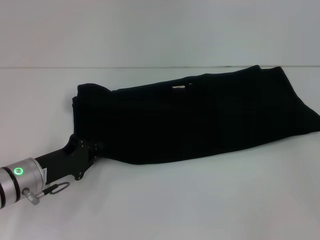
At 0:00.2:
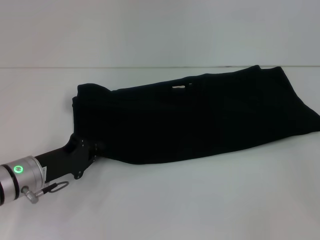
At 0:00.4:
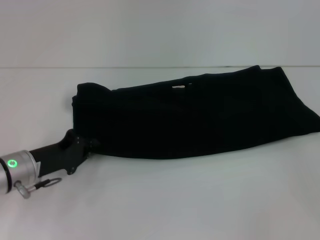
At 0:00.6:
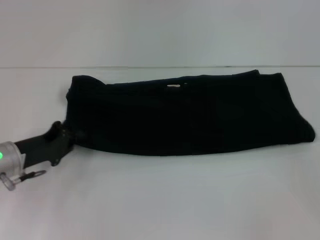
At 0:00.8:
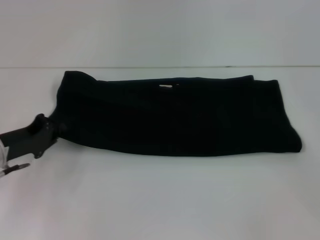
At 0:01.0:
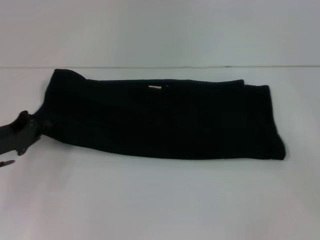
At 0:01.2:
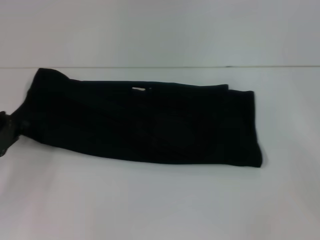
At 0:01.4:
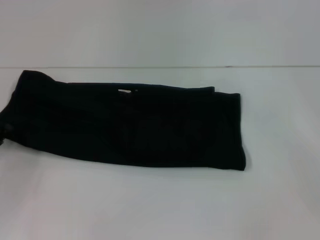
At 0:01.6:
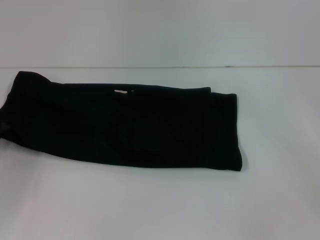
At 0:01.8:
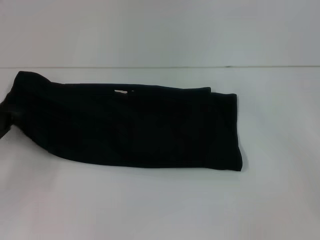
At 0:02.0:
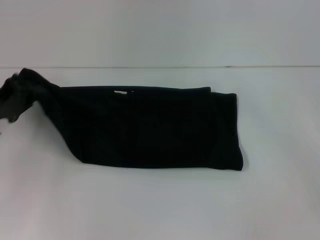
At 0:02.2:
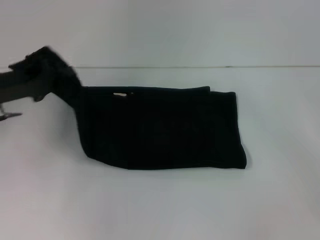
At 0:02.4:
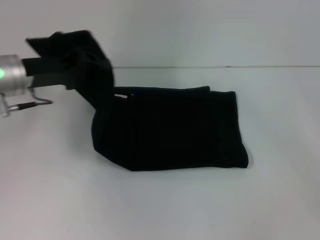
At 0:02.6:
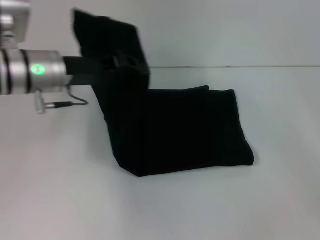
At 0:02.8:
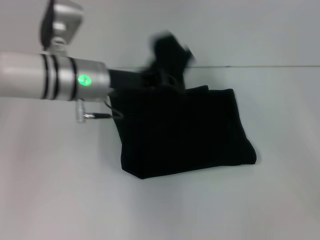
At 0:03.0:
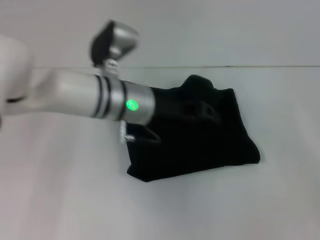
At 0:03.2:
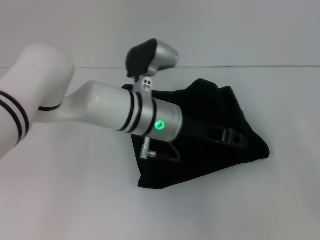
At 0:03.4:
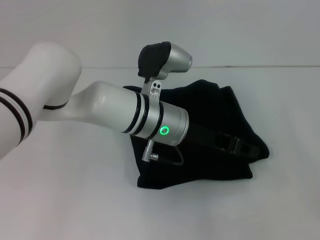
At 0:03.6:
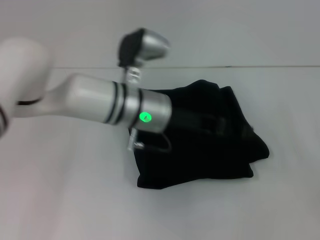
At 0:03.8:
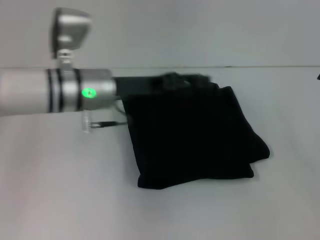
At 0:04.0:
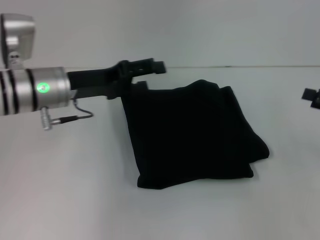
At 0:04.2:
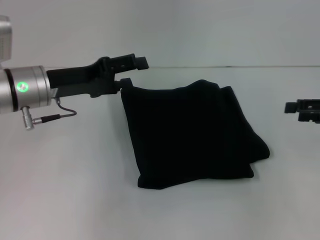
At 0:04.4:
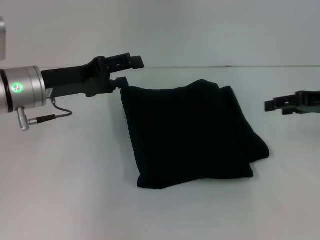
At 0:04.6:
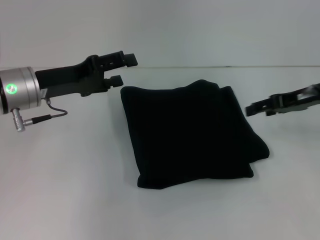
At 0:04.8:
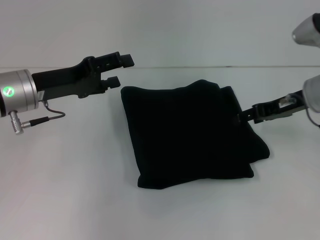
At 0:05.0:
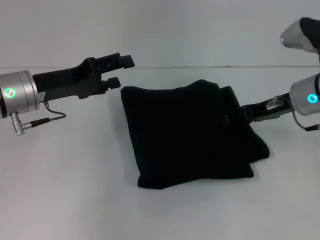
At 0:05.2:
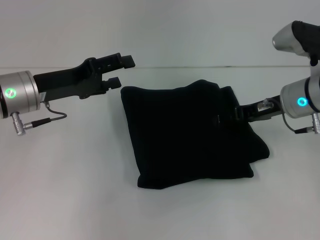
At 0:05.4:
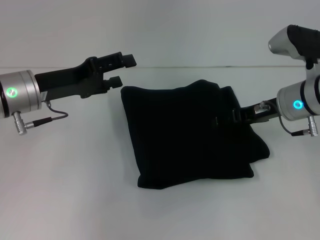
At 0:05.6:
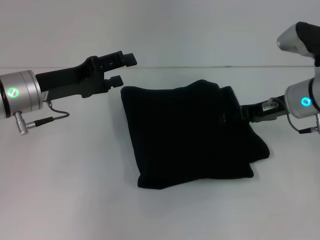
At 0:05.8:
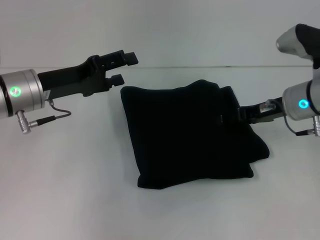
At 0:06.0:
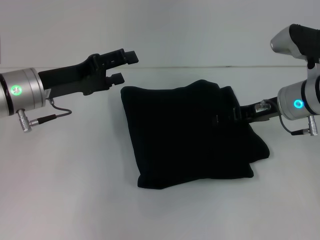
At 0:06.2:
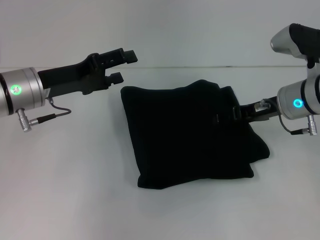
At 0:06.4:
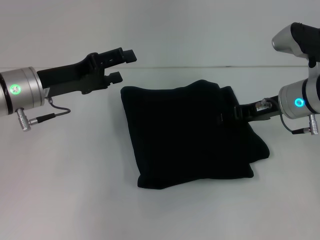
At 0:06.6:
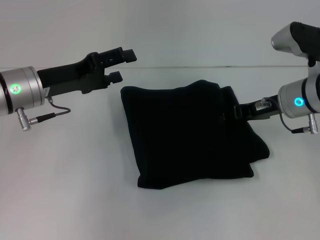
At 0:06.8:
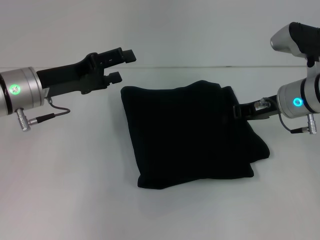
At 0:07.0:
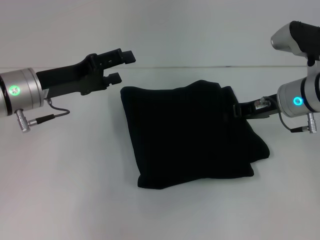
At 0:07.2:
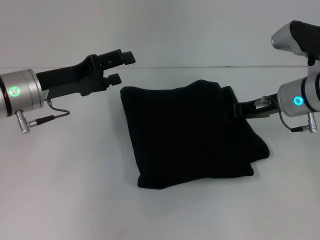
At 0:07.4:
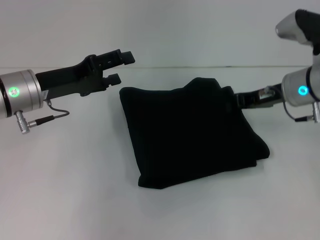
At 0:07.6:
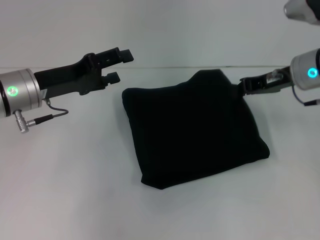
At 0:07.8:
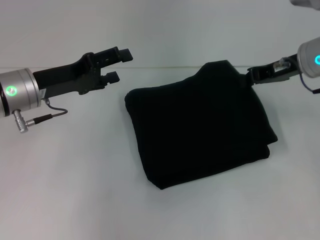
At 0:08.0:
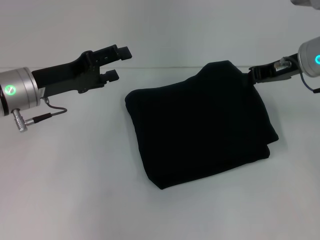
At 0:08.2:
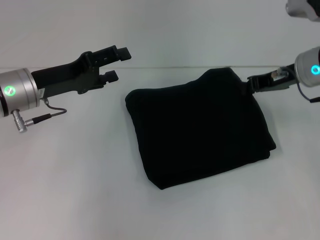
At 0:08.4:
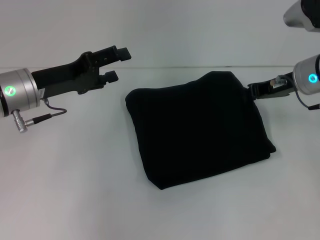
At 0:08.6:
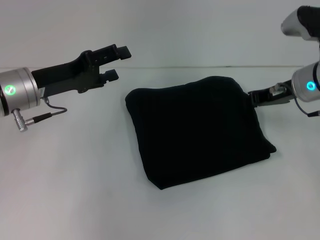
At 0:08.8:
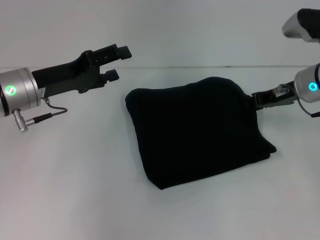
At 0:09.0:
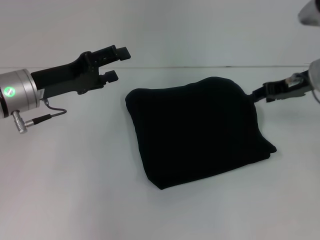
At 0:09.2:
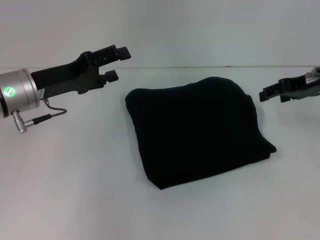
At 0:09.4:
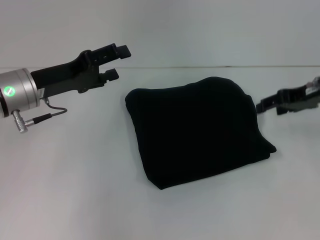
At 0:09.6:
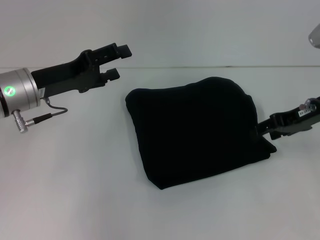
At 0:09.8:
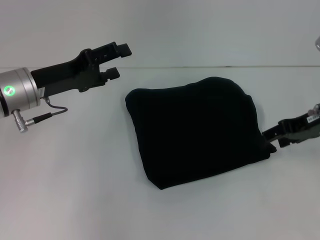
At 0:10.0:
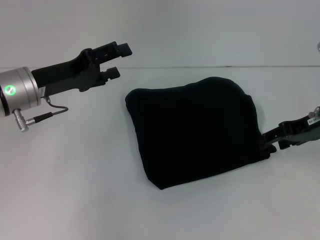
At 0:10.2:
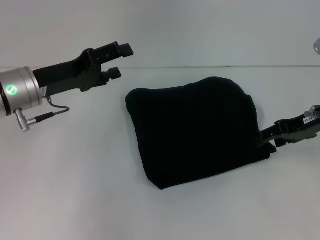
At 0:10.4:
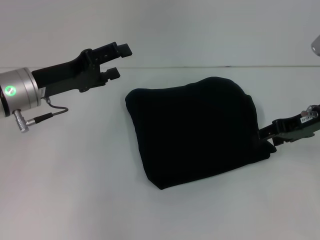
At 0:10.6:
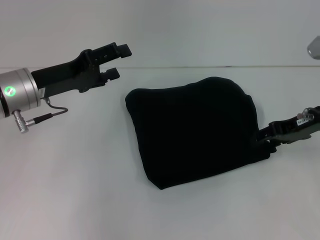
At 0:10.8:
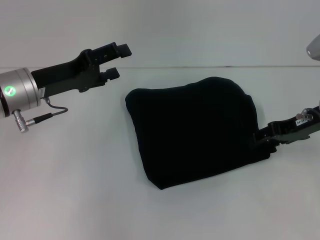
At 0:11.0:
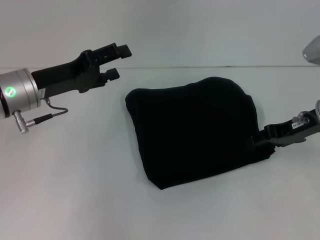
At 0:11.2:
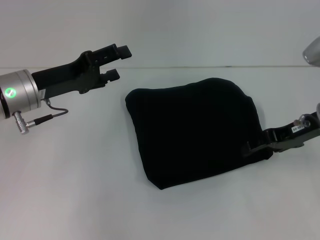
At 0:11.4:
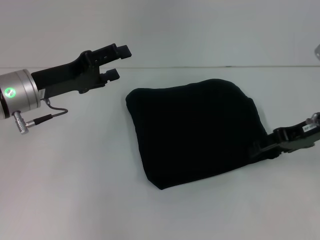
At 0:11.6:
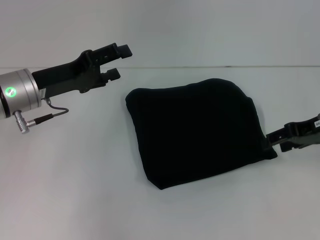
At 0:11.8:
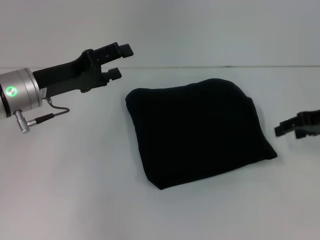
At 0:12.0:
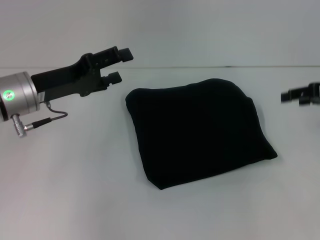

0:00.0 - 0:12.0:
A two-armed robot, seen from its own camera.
Step, 0:00.0 - 0:03.6: Fold the clothes with your left hand.
0:00.0 - 0:01.6: The left gripper moves to the left, about 10 cm, and closes.
0:01.6 - 0:03.0: The left gripper travels to the right by approximately 30 cm.
0:03.0 - 0:04.4: The right gripper travels forward and to the left by some 10 cm. Meanwhile the left gripper is displaced to the left by roughly 15 cm, and opens.
0:04.4 - 0:06.0: The right gripper heads to the left, covering some 10 cm.
0:06.0 - 0:07.6: The right gripper closes up.
0:07.6 - 0:09.0: The grippers make only small movements.
0:09.0 - 0:10.4: The right gripper opens its fingers.
0:10.4 - 0:12.0: The right gripper shifts approximately 5 cm to the right.

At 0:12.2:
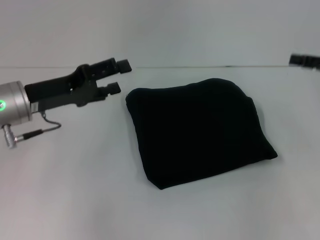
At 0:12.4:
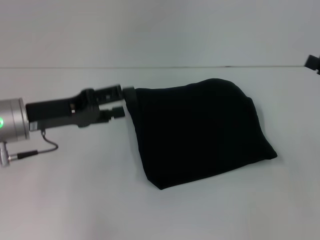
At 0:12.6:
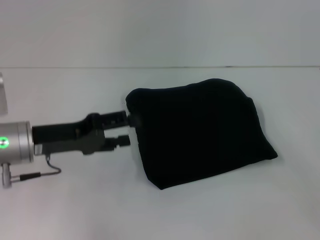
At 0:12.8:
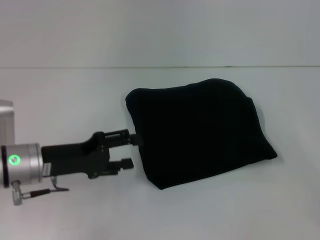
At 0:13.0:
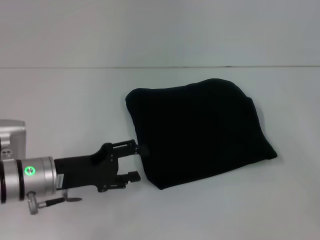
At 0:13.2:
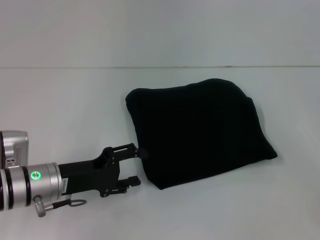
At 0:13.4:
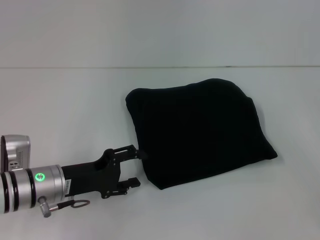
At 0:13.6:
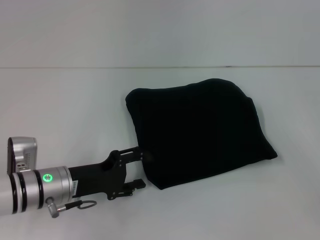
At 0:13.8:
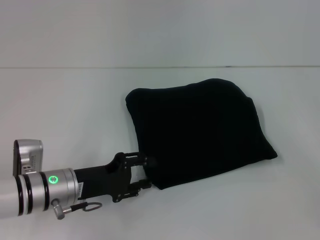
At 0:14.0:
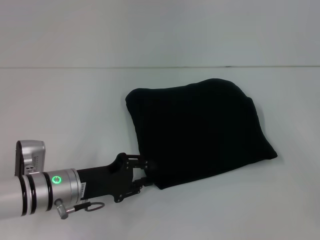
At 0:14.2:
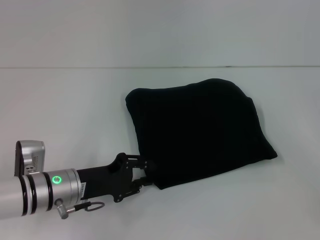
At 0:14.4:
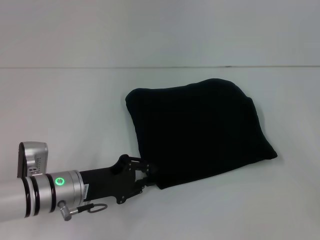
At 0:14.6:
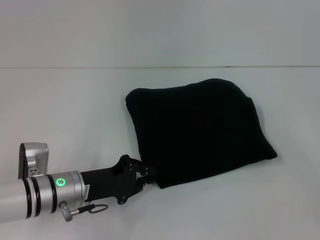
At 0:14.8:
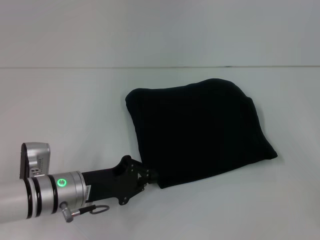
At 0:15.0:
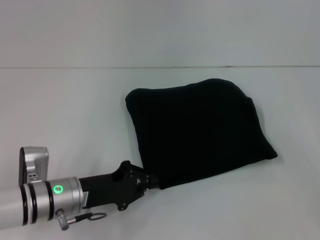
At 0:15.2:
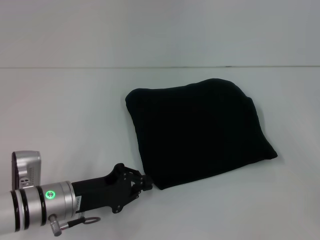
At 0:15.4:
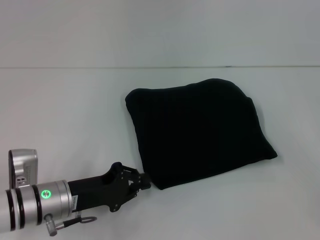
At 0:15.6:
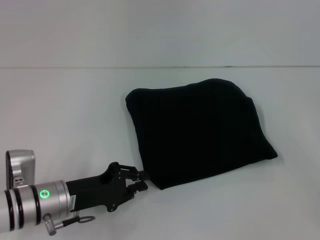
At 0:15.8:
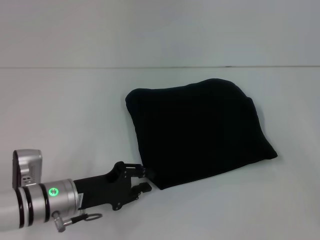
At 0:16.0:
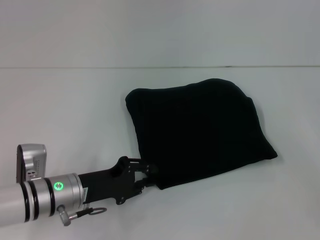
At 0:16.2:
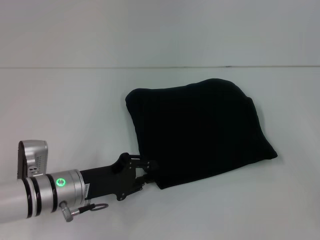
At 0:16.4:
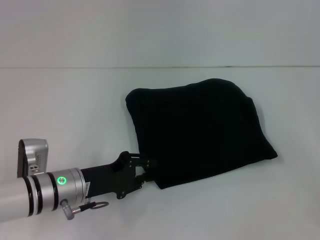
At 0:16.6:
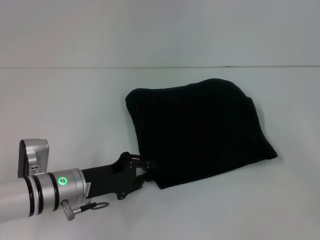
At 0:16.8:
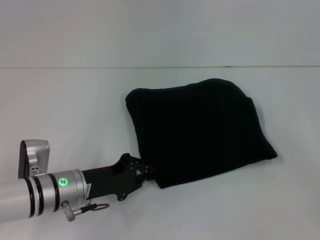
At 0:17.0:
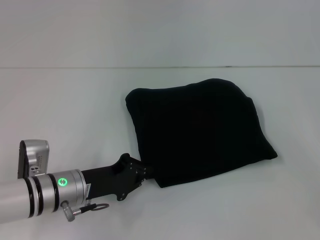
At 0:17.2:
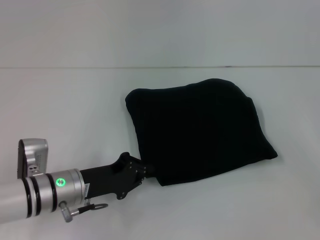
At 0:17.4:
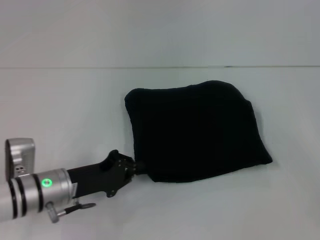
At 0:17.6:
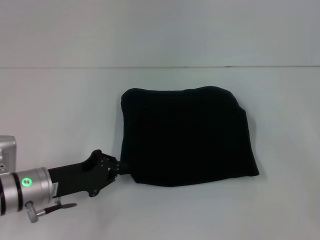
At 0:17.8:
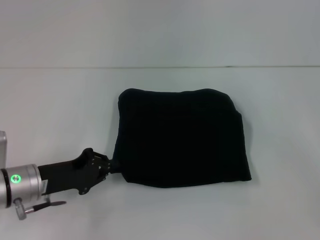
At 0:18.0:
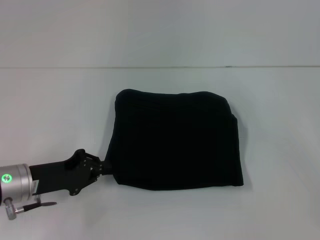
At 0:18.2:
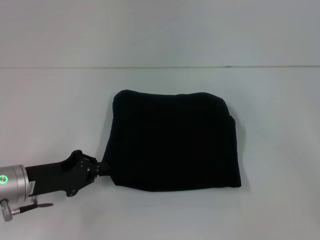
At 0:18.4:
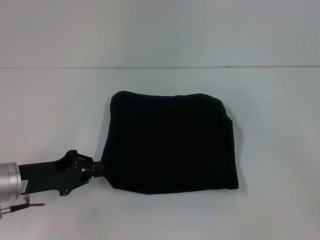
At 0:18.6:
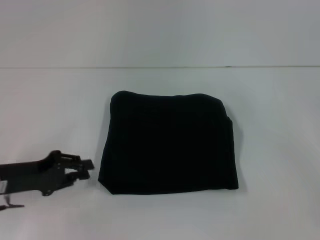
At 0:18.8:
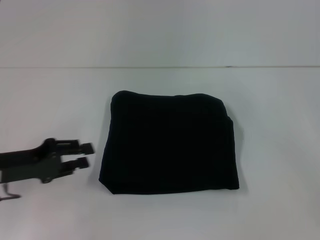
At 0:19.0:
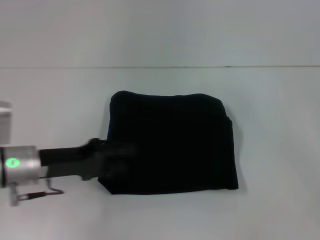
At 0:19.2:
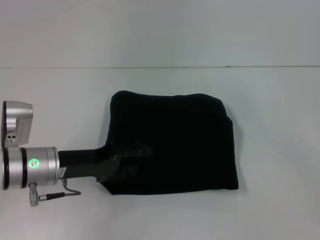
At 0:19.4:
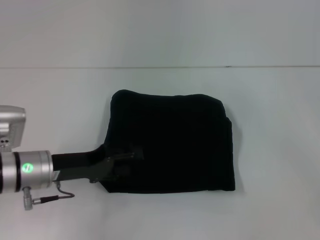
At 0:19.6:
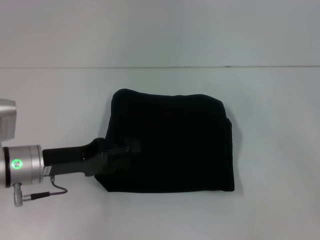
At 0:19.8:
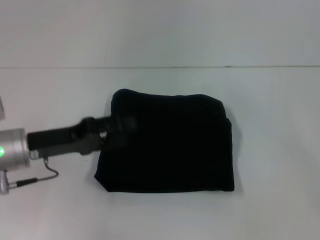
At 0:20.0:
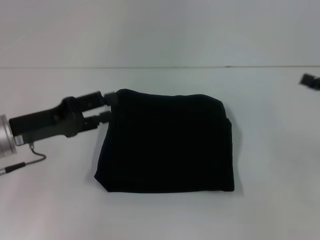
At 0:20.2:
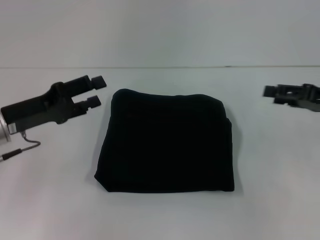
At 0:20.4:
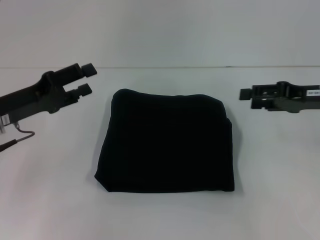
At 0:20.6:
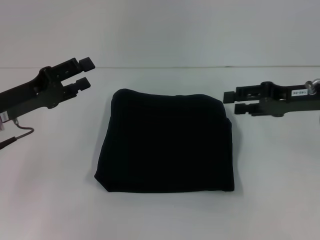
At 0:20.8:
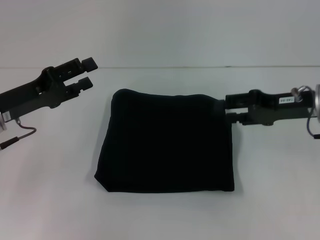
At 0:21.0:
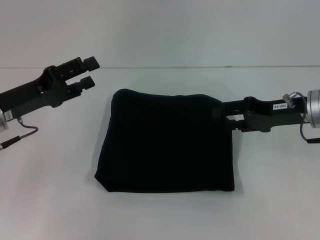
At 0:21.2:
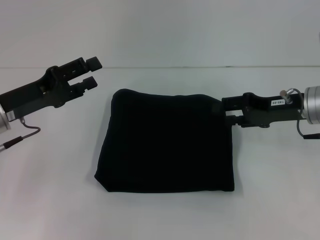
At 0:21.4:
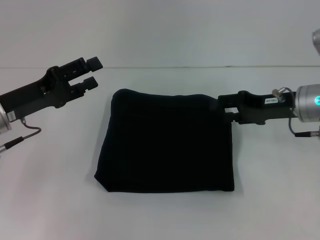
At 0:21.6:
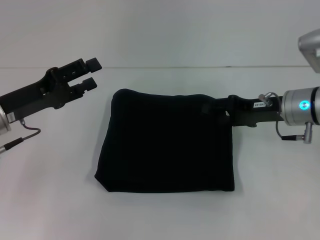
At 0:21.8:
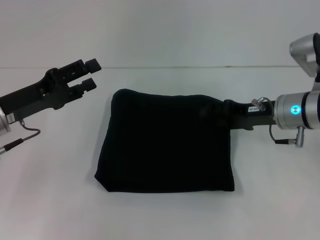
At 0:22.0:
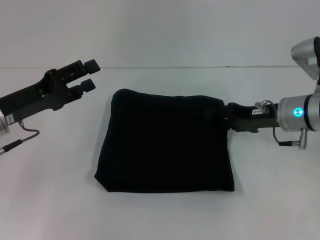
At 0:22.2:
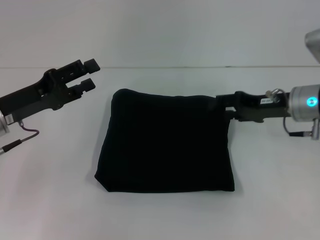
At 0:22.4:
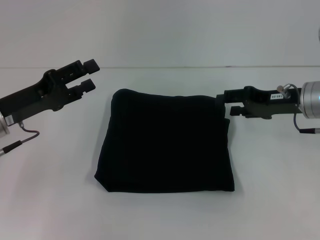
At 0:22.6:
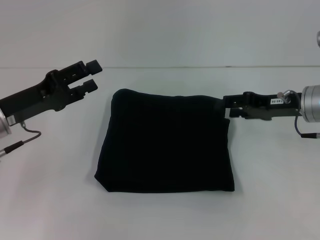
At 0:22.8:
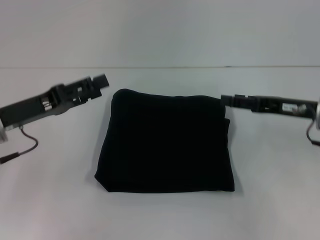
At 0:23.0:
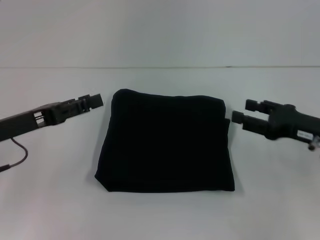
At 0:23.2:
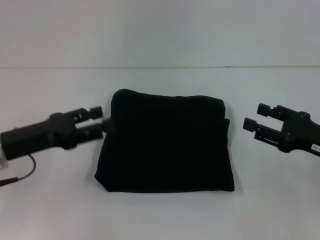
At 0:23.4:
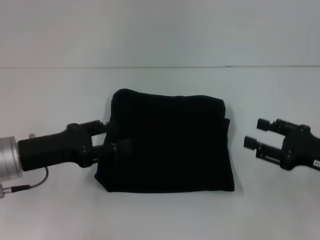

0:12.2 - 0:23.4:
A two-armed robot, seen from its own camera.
0:12.2 - 0:13.8: The right gripper shifts approximately 10 cm backward. The left gripper moves downward and backward, approximately 10 cm.
0:13.8 - 0:15.4: The left gripper closes up.
0:15.4 - 0:17.0: There are only small adjustments of the grippers.
0:17.0 - 0:18.6: The left gripper goes roughly 10 cm to the left.
0:18.6 - 0:20.2: The left gripper goes to the right and returns, roughly 5 cm each way, and opens its fingers. Meanwhile the right gripper goes some 10 cm forward and to the left.
0:20.2 - 0:21.8: The right gripper moves to the left, approximately 10 cm.
0:21.8 - 0:23.4: The right gripper heads backward and to the right, covering roughly 15 cm.
